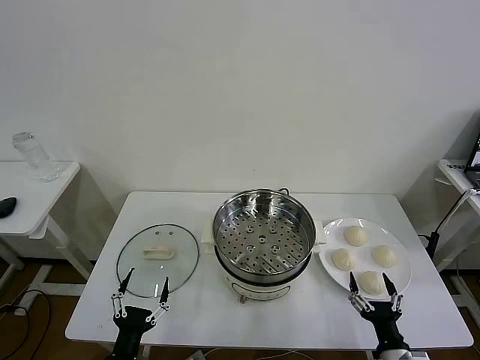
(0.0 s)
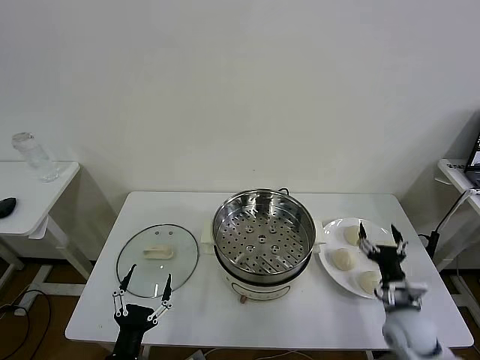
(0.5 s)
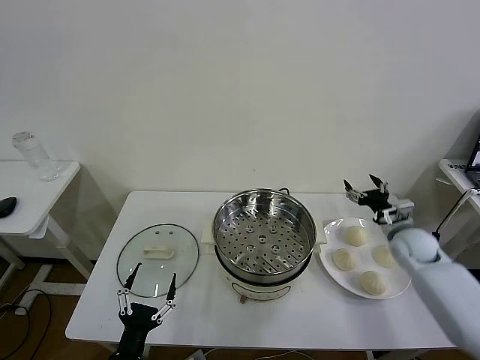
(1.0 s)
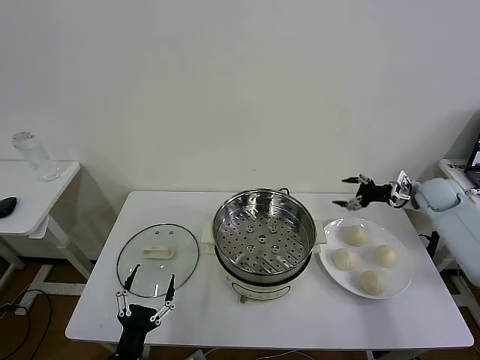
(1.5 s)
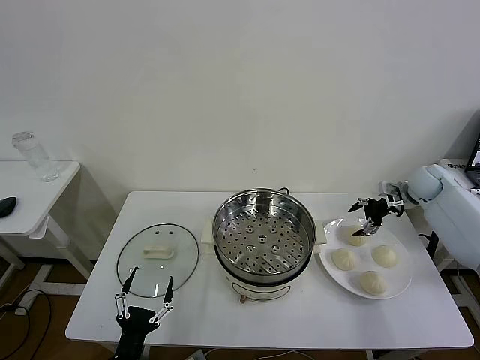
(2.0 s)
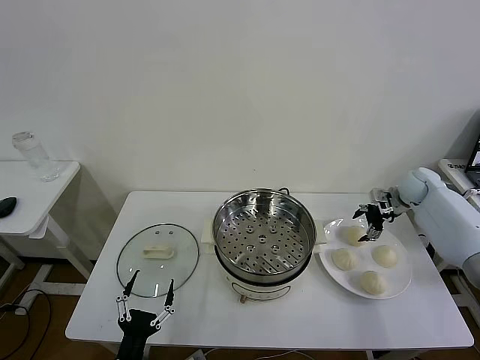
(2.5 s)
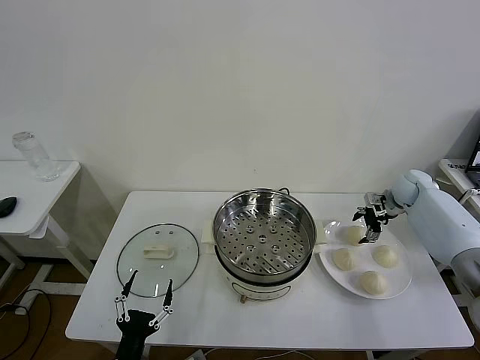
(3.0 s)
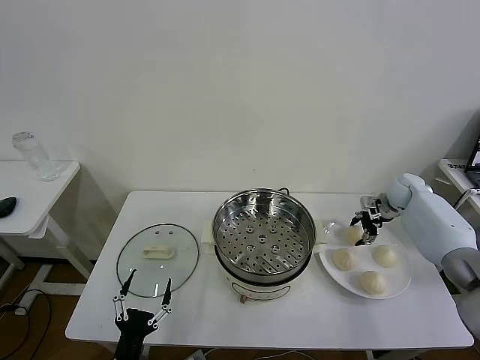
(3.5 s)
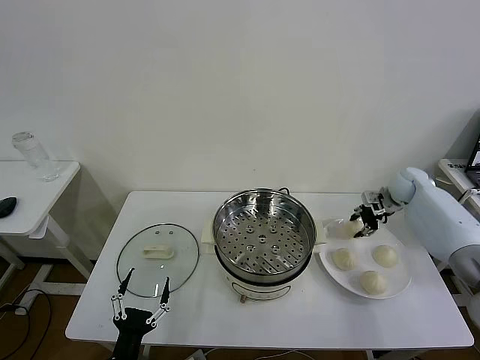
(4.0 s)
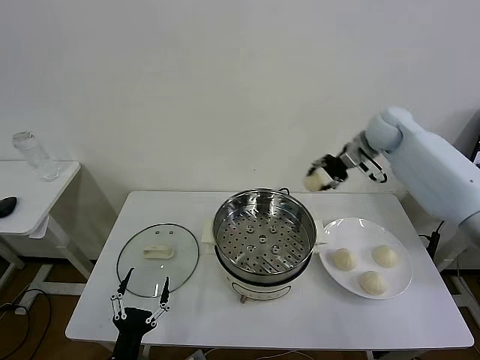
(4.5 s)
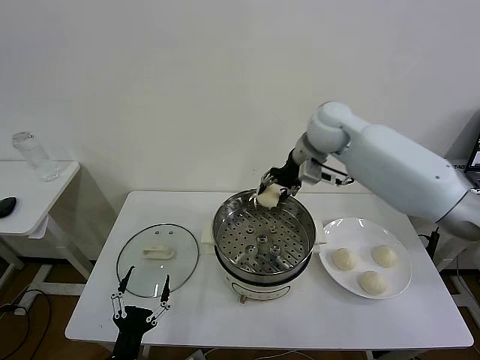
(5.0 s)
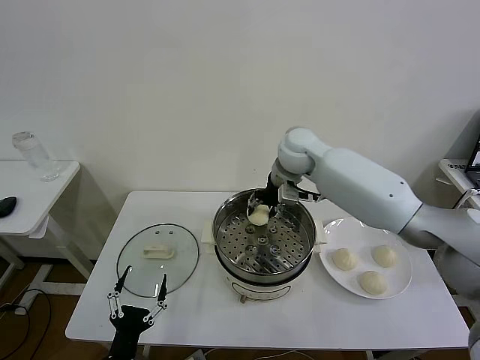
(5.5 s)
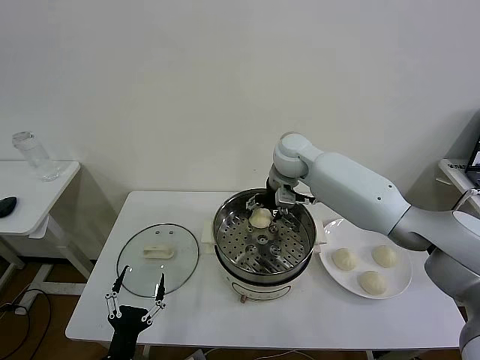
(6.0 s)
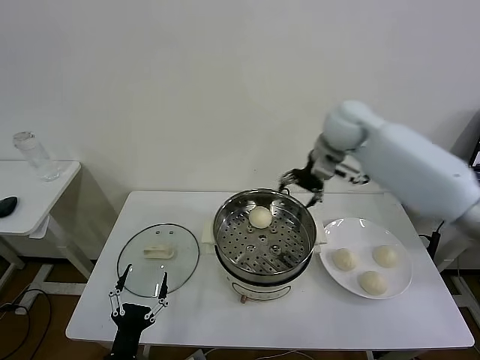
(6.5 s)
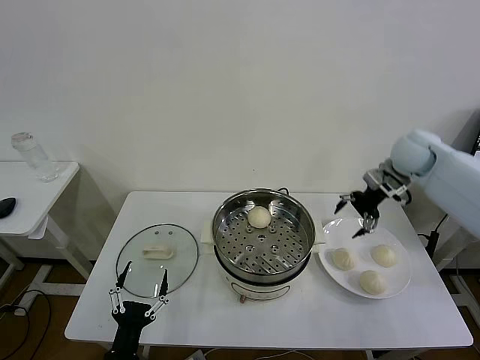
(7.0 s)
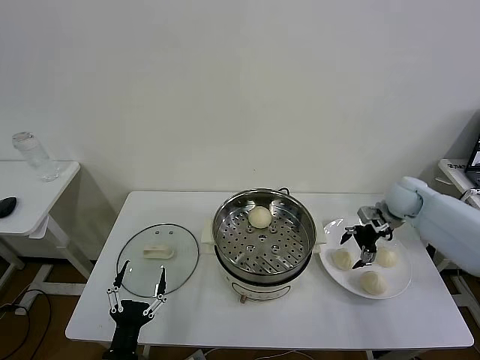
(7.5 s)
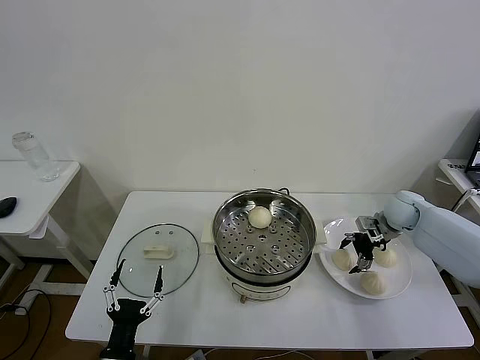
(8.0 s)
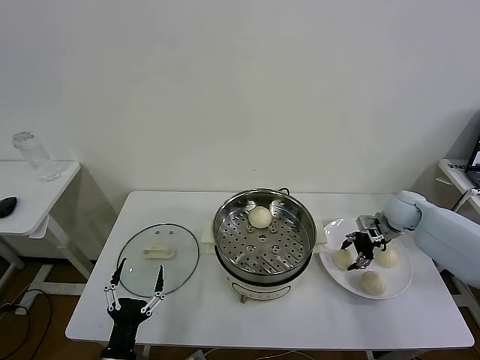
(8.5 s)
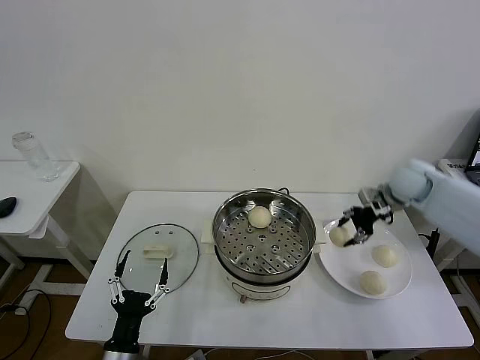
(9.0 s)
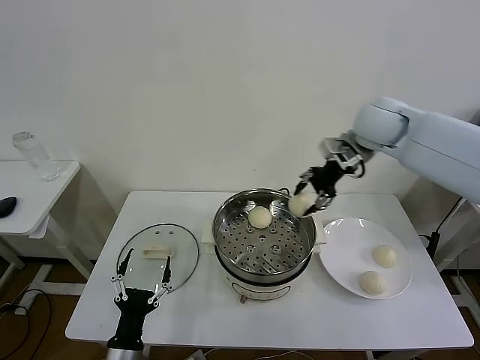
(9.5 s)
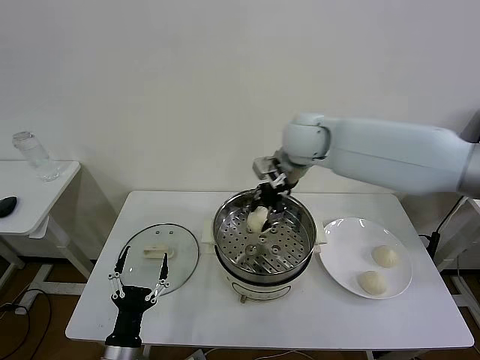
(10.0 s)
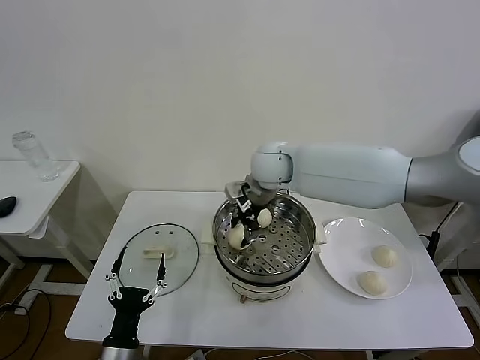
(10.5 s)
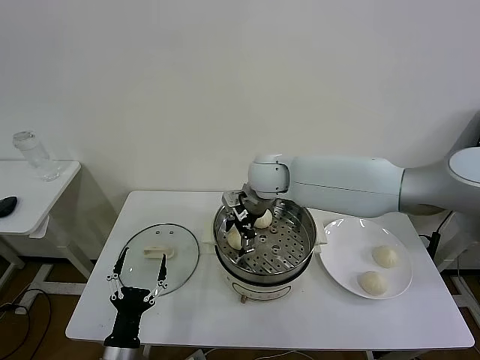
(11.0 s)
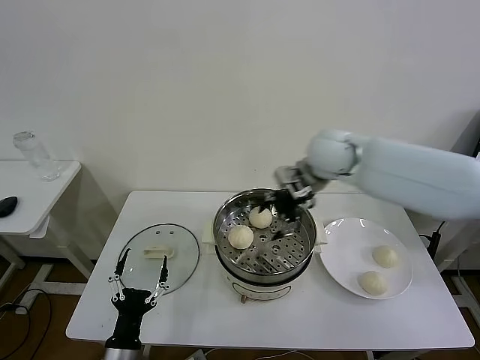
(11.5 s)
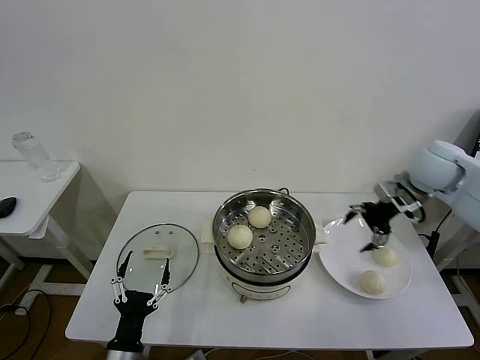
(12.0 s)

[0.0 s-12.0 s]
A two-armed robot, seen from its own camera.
Task of the whole recording: take steamed baozi put them in steamer then cover it.
Step, 0.0 to 3.5 s: Grasp the baozi in the plate with right gripper.
Step, 4.0 to 6.0 s: Place the baozi on the steamer with right gripper.
Step, 6.5 to 8.5 s: Grasp the baozi in the plate with right gripper.
Step, 9.0 to 11.0 s: Place the baozi on the steamer with right gripper.
2.0 to 4.0 s: The right gripper closes.
4.0 to 6.0 s: The right gripper is displaced to the left by roughly 30 cm, and opens.
6.0 to 8.0 s: The right gripper moves to the right and downward, roughly 35 cm.
8.0 to 10.0 s: The right gripper moves to the left and upward, about 35 cm, and closes up.
10.0 to 12.0 s: The right gripper heads to the right, covering about 30 cm, and opens its fingers.

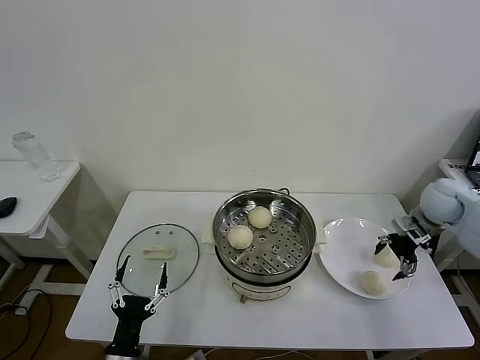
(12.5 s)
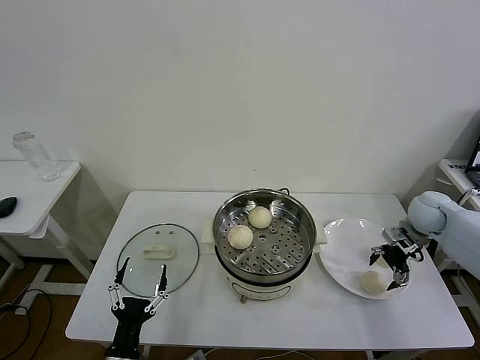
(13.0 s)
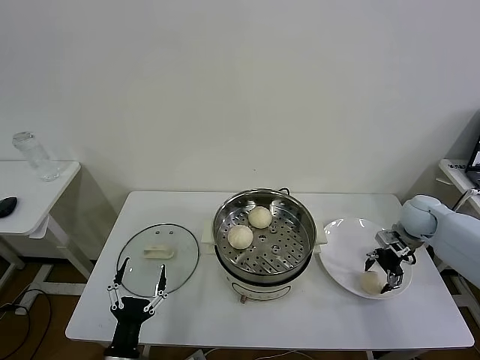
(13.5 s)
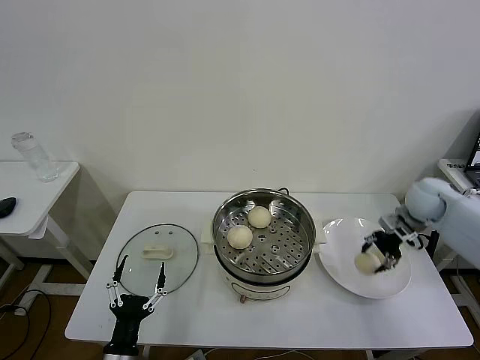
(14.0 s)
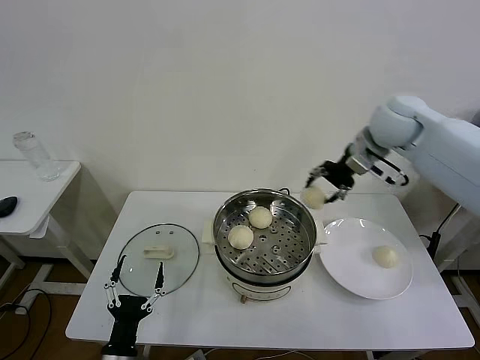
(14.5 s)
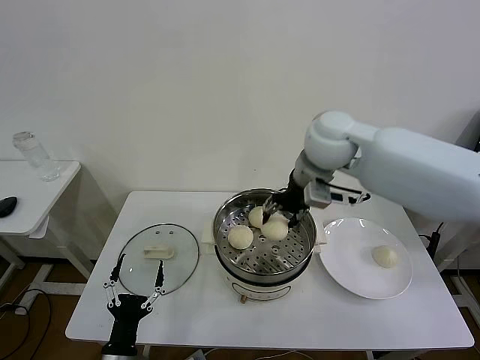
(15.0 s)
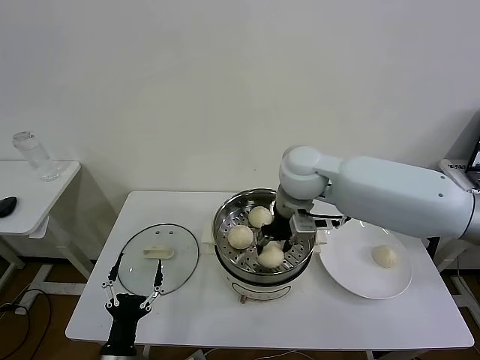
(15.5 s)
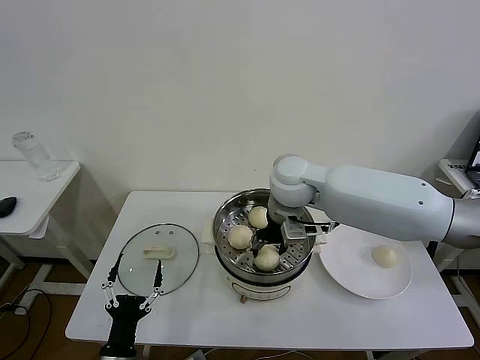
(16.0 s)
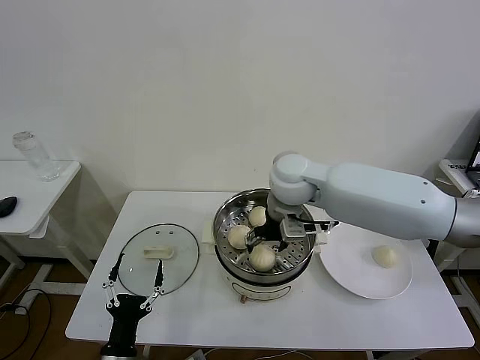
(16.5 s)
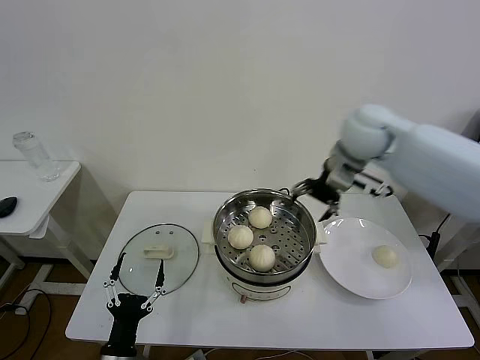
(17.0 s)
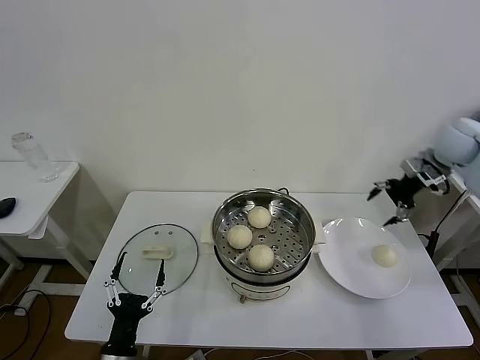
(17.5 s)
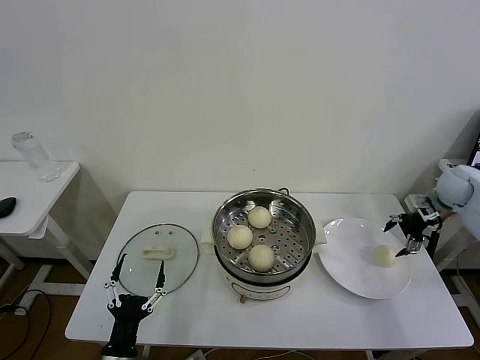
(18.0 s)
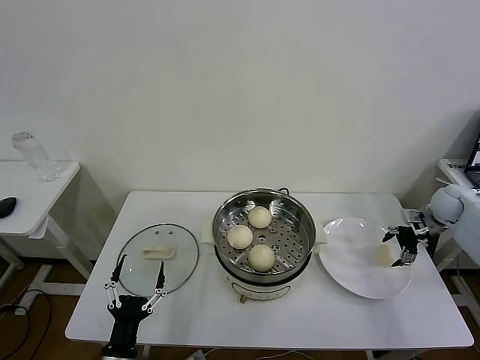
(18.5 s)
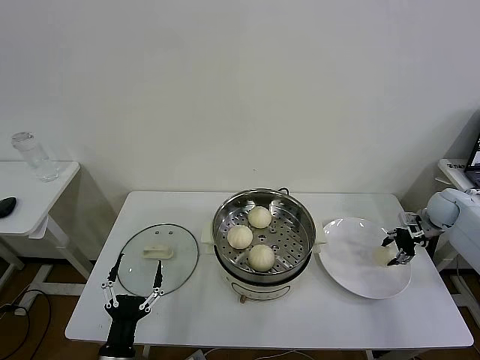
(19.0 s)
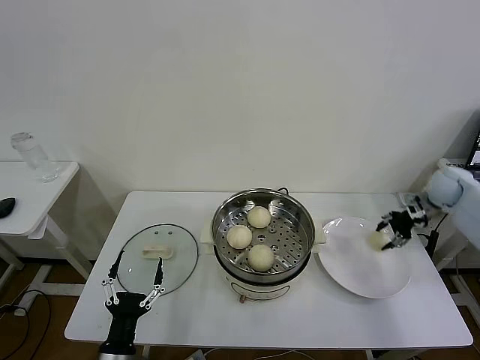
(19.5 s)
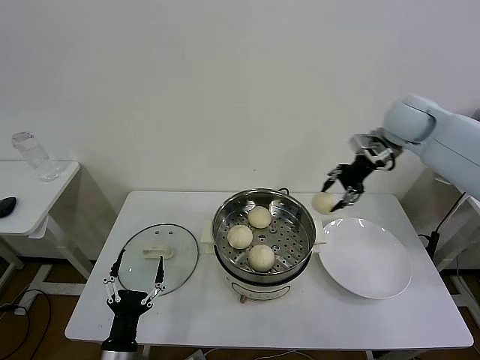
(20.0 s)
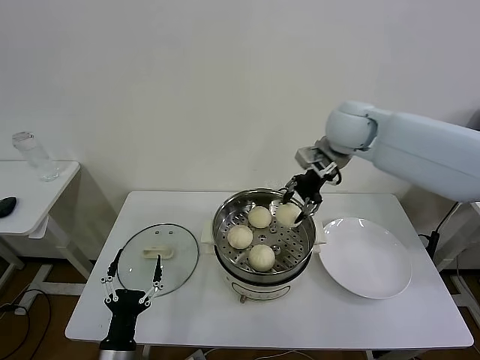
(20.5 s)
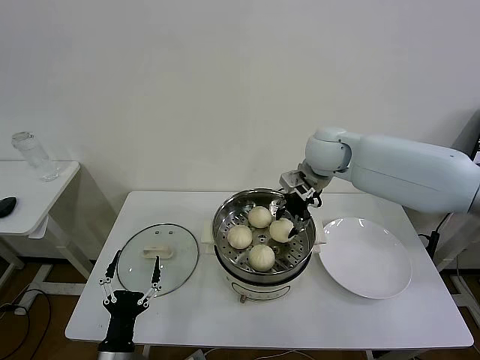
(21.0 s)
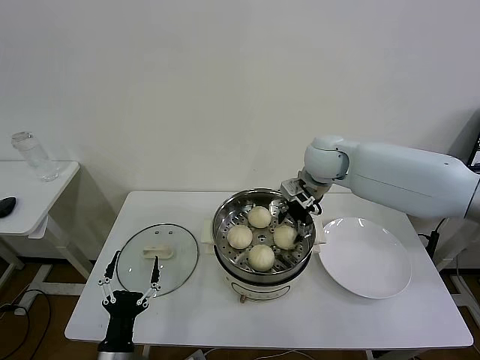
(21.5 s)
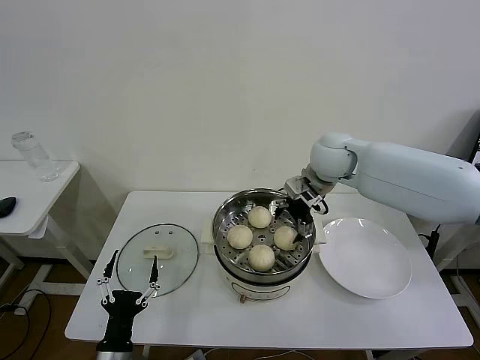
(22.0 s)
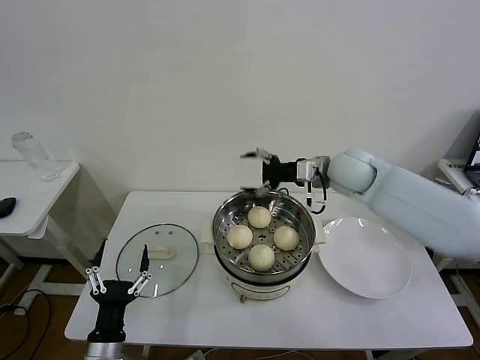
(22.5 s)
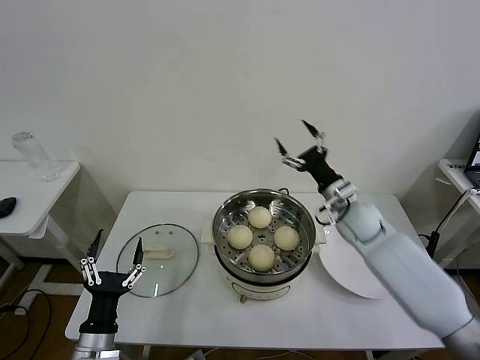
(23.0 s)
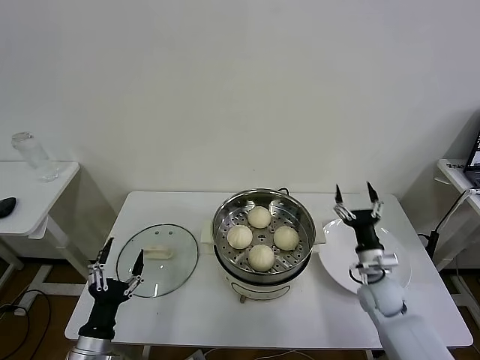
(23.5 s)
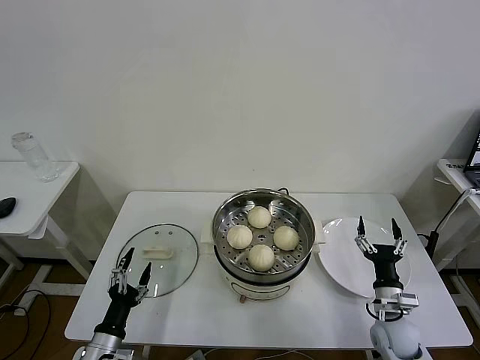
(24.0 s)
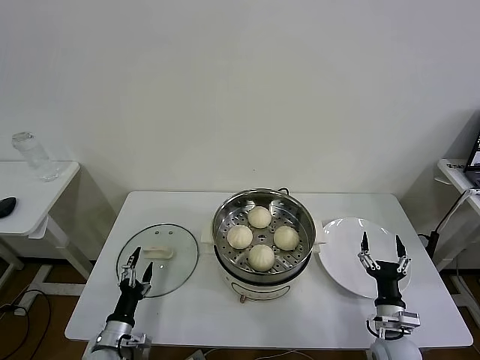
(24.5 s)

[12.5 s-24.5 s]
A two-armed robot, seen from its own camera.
Task of the whole recording: take steamed baozi put them in steamer then cover it.
Step, 14.0 to 16.5 s: Place the baozi on the steamer with right gripper.
Step, 17.0 to 19.0 s: Grasp the baozi in the plate with right gripper.
Step, 19.5 to 21.5 s: Place the baozi on the steamer with right gripper.
12.5 to 14.5 s: The right gripper heads upward and to the left, covering roughly 25 cm, and closes up.
14.5 to 16.5 s: The right gripper moves to the left and downward, approximately 20 cm, and opens up.
16.5 to 18.5 s: The right gripper goes some 40 cm to the right.
18.5 to 20.5 s: The right gripper heads to the left and upward, covering approximately 40 cm, and closes up.
20.5 to 22.5 s: The right gripper is displaced downward by roughly 10 cm, and opens its fingers.
22.5 to 24.5 s: The right gripper is displaced downward and backward by approximately 40 cm; the left gripper heads downward, forward and to the left, covering about 15 cm.

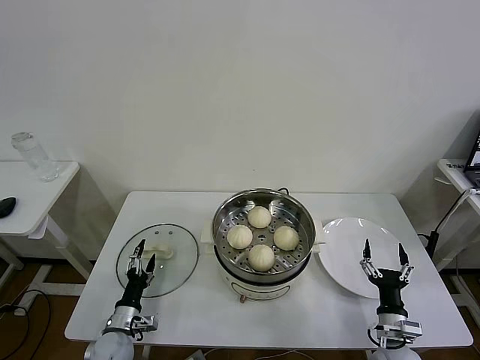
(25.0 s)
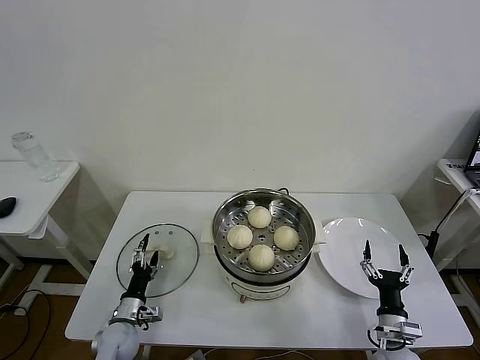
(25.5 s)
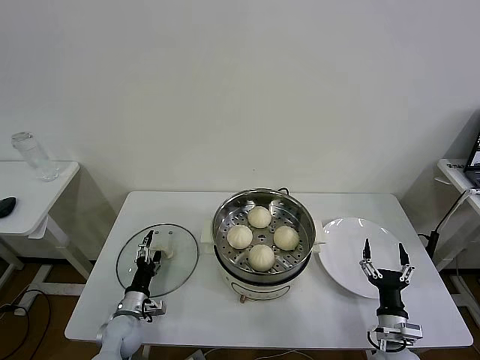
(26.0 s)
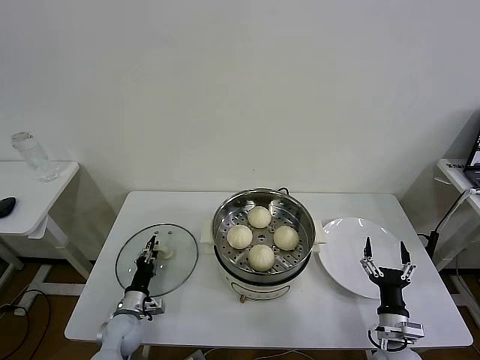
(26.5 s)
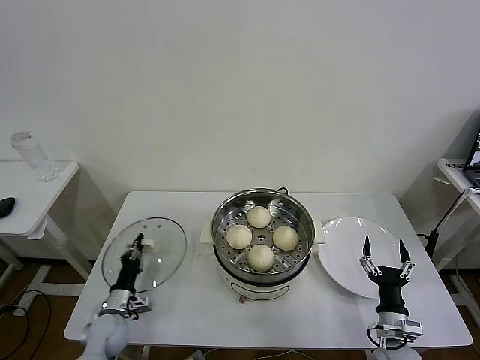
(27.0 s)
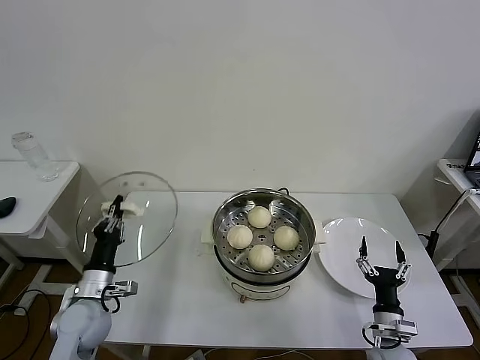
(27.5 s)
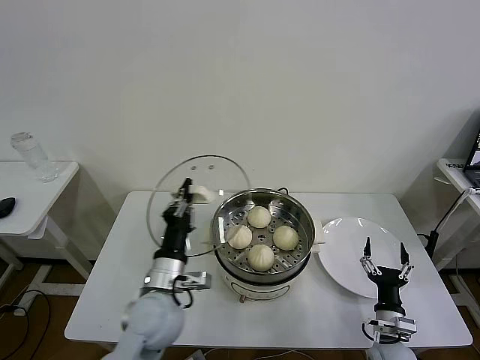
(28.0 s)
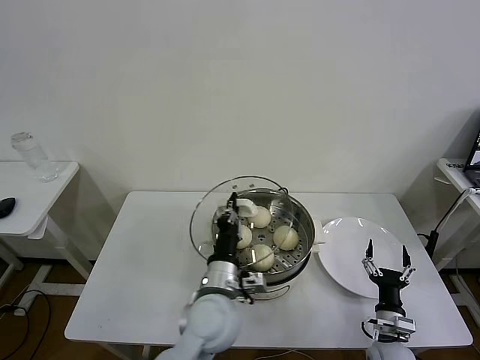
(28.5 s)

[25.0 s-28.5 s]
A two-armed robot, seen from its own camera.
Task of the whole recording: take steamed baozi put them in steamer then cover it.
Step, 25.0 to 27.0 s: Grasp the pot lid with left gripper.
25.0 to 27.0 s: The left gripper closes its fingers.
27.0 to 28.5 s: The left gripper heads to the right and upward, covering approximately 35 cm.
